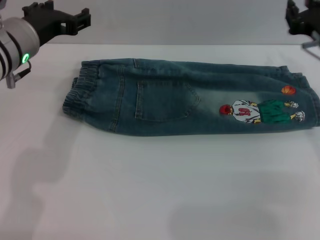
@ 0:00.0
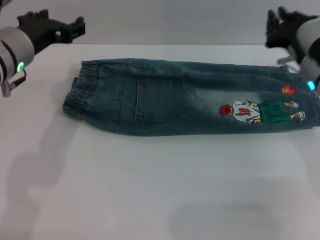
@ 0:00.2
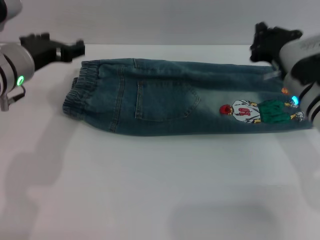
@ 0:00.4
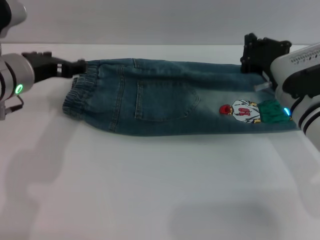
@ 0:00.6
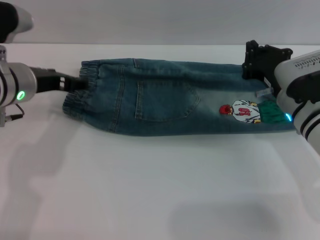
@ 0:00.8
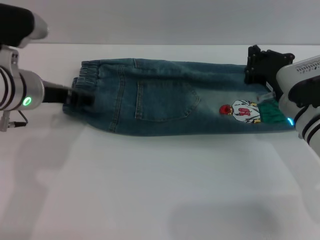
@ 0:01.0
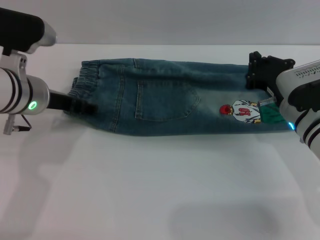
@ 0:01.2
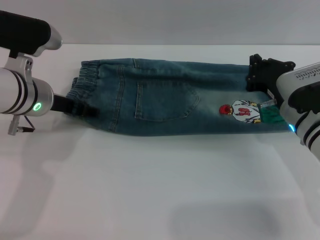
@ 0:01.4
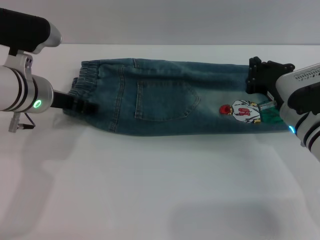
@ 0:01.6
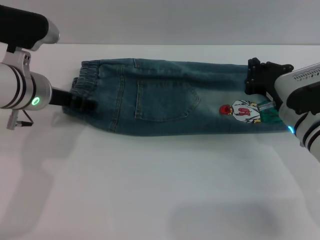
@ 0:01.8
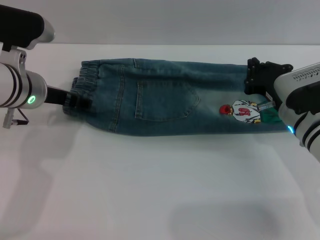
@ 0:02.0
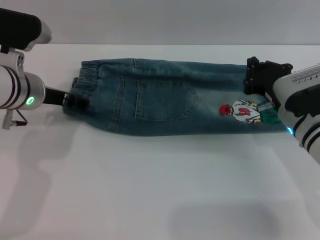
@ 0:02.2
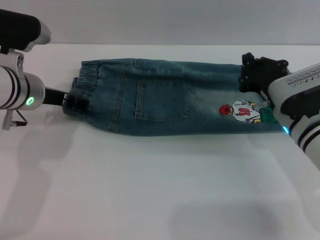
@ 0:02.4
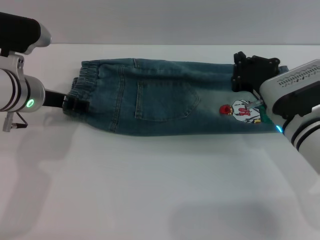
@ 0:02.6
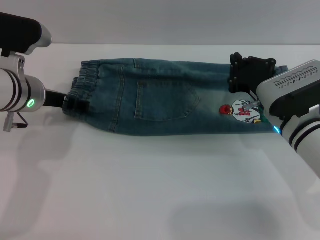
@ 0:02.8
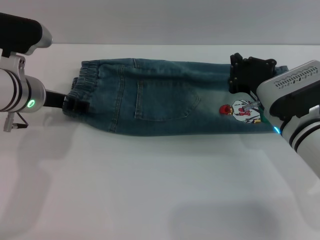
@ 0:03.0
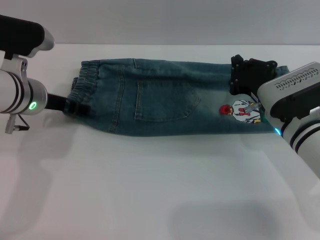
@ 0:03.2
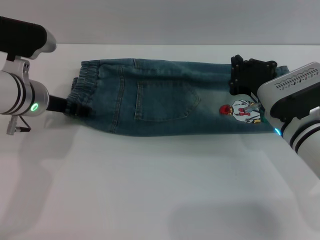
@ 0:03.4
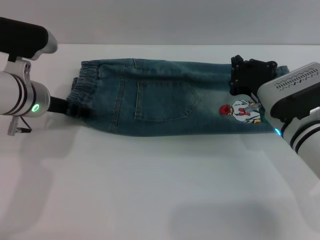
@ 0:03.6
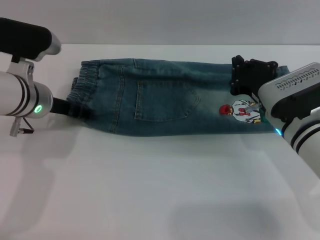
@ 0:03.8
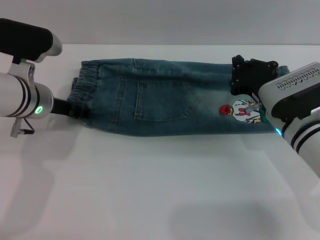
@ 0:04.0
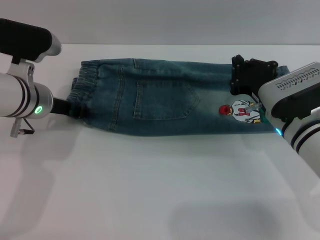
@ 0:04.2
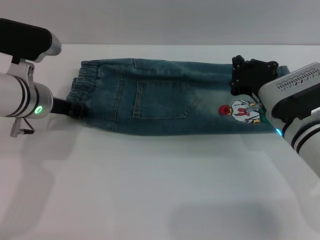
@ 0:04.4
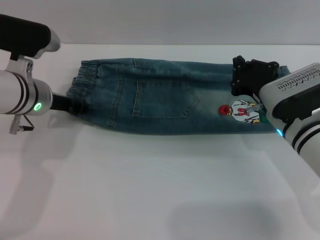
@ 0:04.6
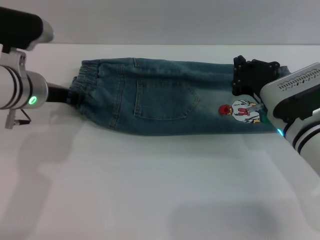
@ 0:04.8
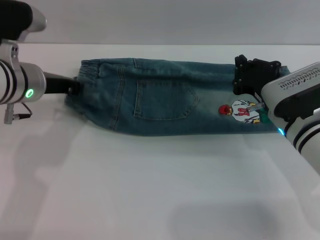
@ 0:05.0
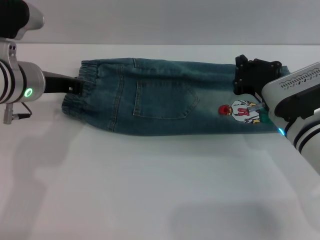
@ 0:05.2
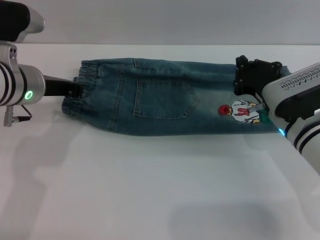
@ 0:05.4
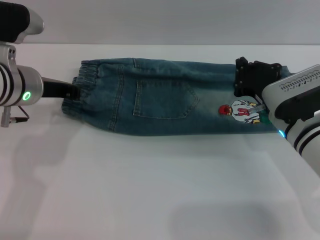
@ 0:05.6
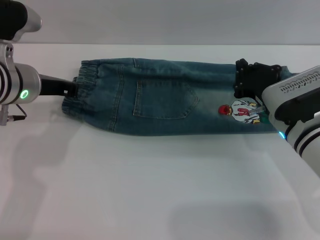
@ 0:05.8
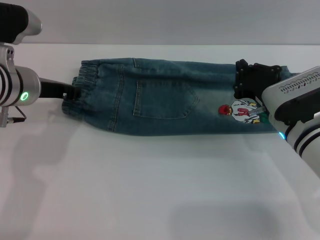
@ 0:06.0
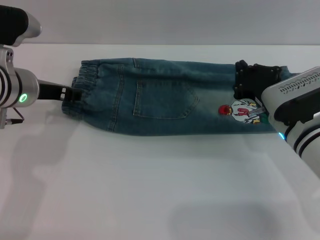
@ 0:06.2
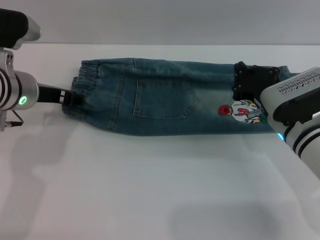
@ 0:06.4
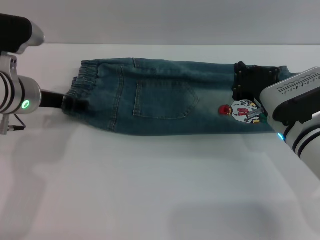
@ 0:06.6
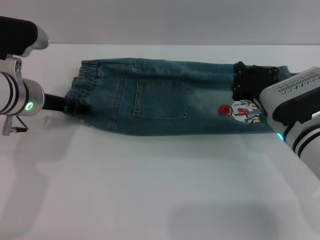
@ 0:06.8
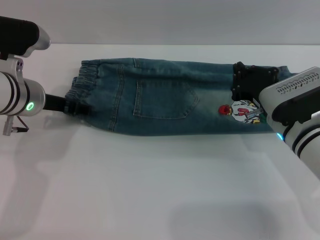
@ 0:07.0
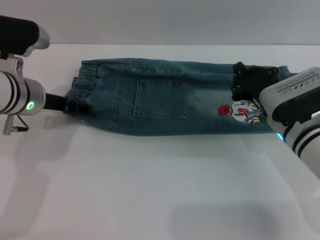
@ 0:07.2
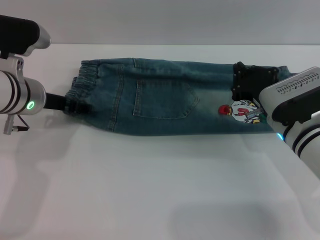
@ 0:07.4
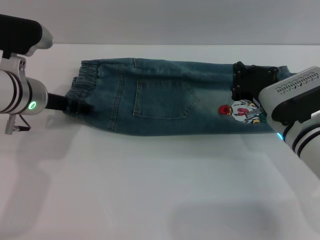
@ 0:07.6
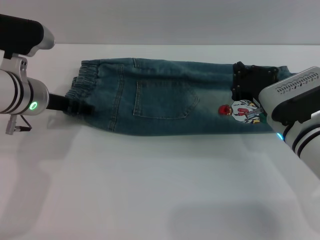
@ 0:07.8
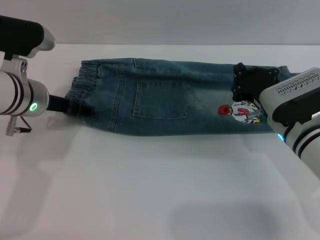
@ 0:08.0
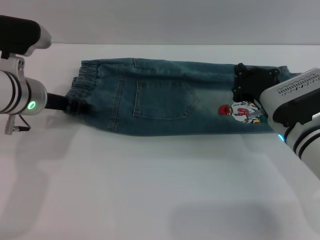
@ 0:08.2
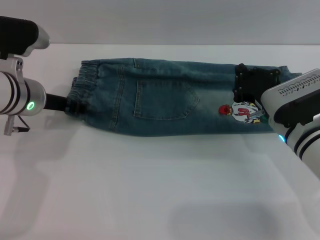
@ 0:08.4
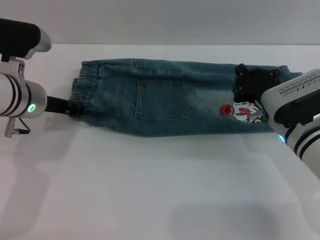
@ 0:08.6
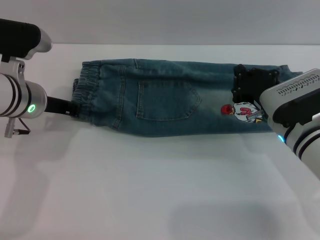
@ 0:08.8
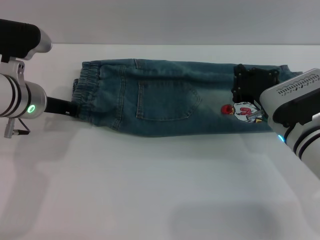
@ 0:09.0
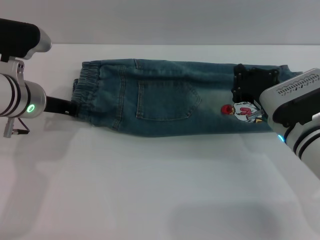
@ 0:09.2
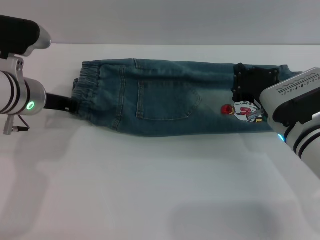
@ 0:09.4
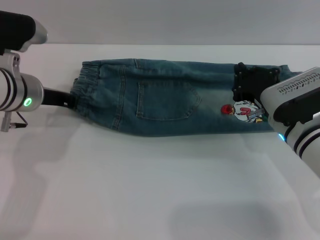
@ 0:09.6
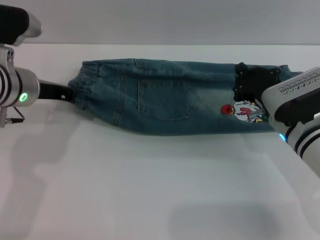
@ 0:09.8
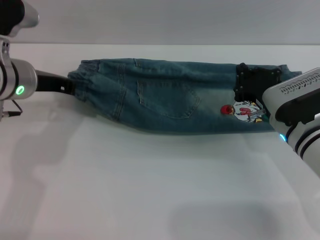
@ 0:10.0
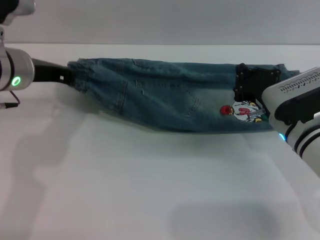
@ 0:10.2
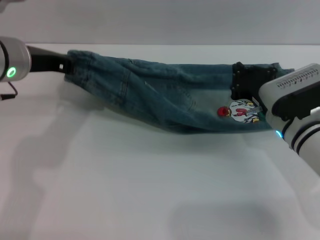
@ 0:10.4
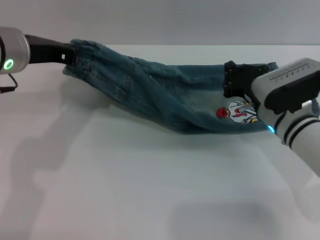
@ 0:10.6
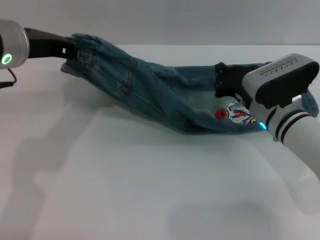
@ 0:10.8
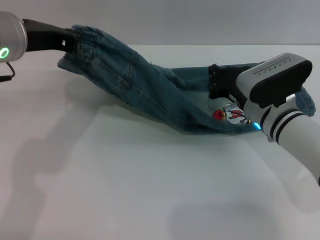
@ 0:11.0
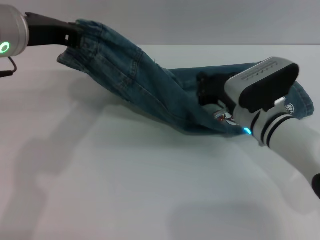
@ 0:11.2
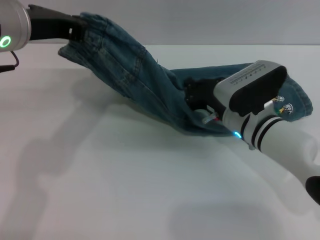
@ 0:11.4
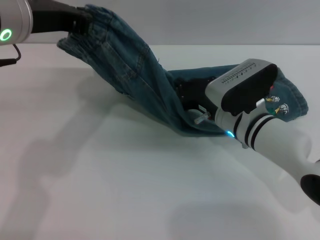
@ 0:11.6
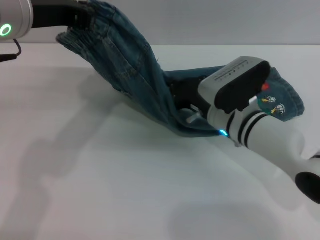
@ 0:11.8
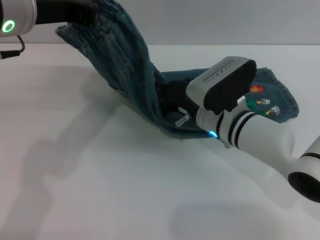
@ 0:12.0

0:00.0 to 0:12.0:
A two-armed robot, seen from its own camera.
0:00.0 to 0:01.6: The right gripper shifts roughly 10 cm downward, and closes up.
0:01.6 to 0:03.0: The grippers make only small movements.
0:03.0 to 0:04.4: The left gripper closes.
0:04.4 to 0:06.0: The left gripper closes up.
0:06.0 to 0:07.6: The left gripper opens.
0:07.6 to 0:09.0: The left gripper closes.
0:09.0 to 0:10.4: The left gripper heads upward, covering some 10 cm.
0:10.4 to 0:12.0: The left gripper goes roughly 10 cm upward. The right gripper is displaced to the left by some 10 cm.

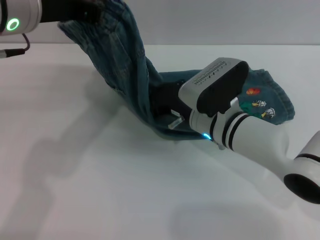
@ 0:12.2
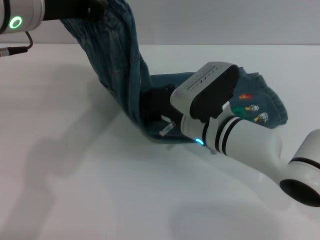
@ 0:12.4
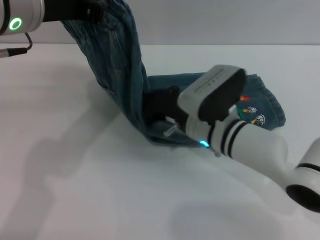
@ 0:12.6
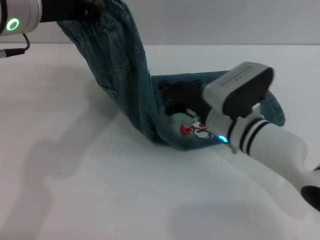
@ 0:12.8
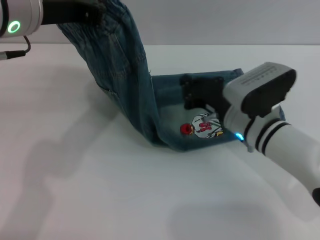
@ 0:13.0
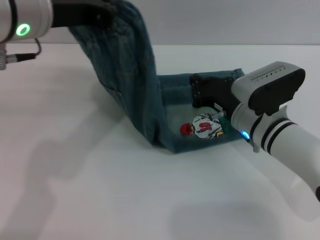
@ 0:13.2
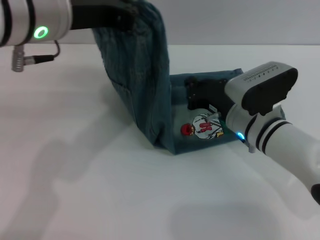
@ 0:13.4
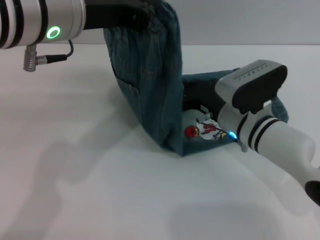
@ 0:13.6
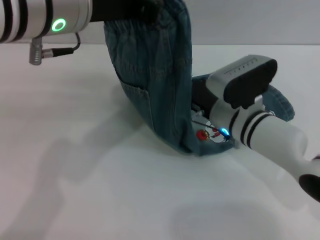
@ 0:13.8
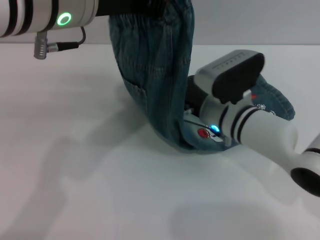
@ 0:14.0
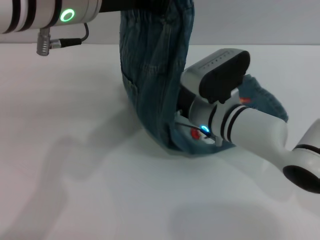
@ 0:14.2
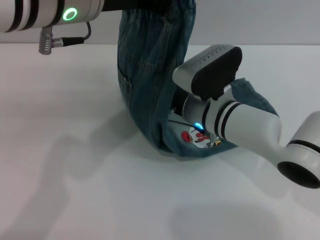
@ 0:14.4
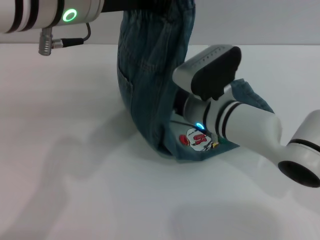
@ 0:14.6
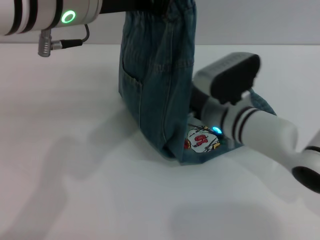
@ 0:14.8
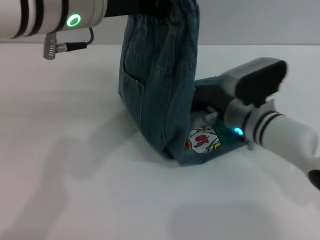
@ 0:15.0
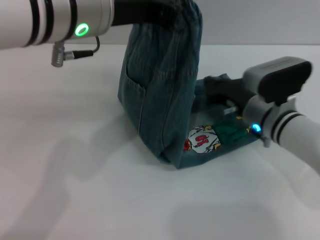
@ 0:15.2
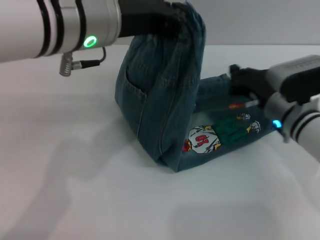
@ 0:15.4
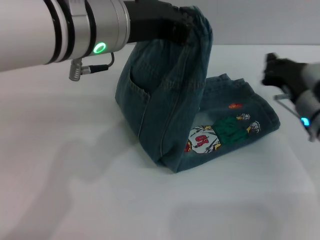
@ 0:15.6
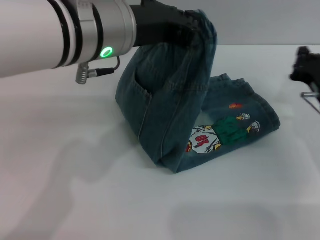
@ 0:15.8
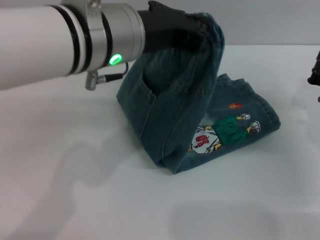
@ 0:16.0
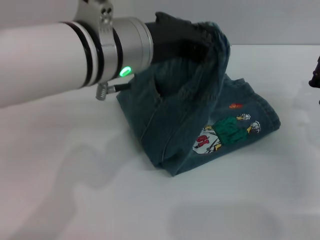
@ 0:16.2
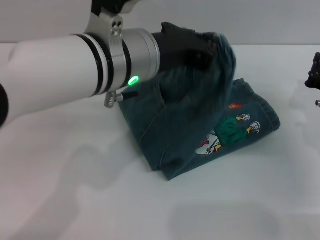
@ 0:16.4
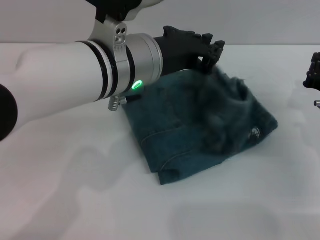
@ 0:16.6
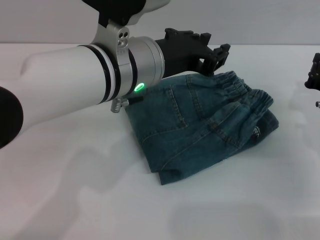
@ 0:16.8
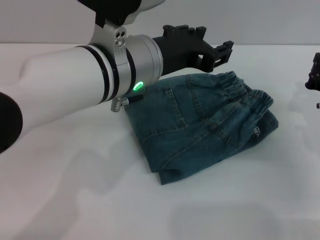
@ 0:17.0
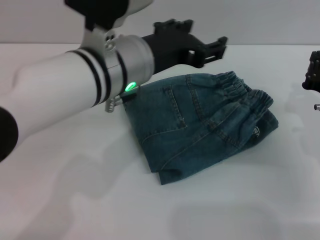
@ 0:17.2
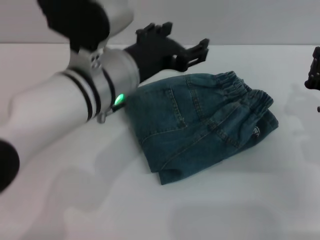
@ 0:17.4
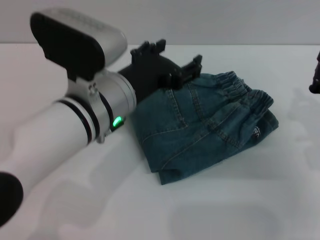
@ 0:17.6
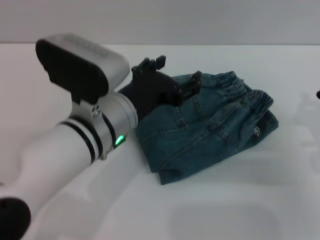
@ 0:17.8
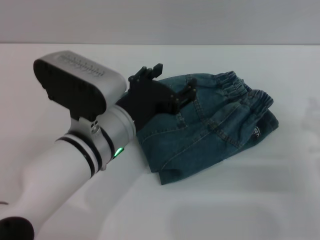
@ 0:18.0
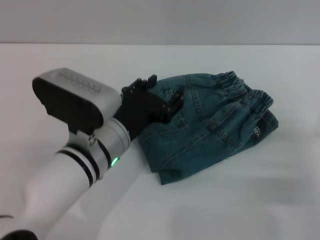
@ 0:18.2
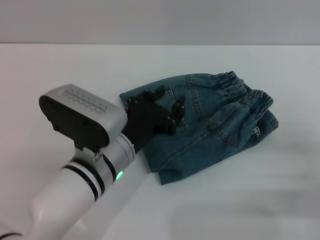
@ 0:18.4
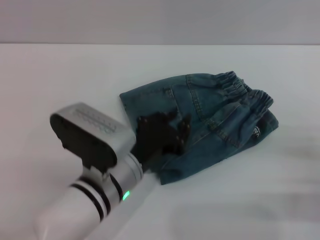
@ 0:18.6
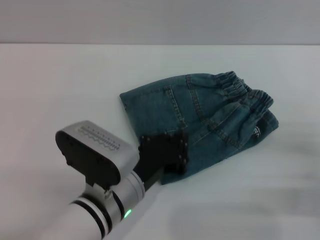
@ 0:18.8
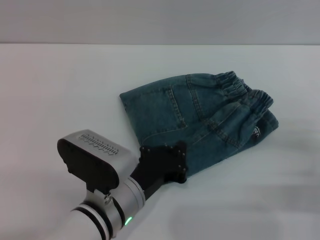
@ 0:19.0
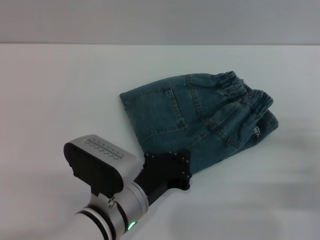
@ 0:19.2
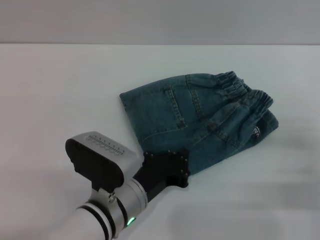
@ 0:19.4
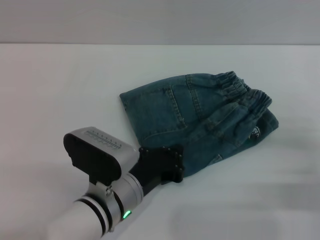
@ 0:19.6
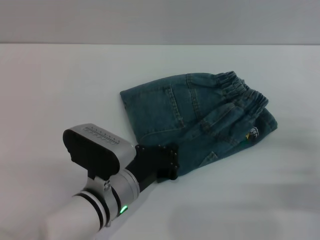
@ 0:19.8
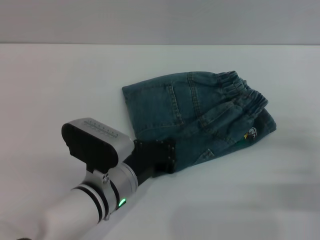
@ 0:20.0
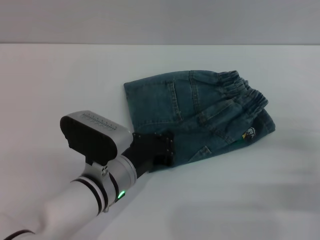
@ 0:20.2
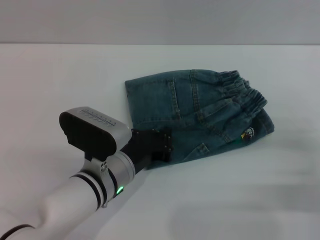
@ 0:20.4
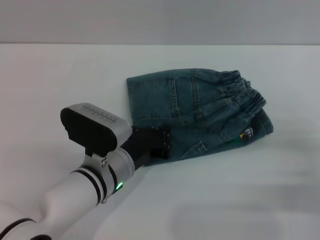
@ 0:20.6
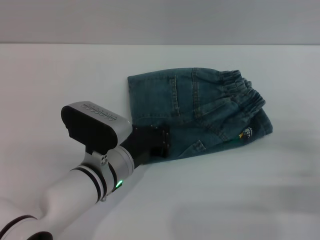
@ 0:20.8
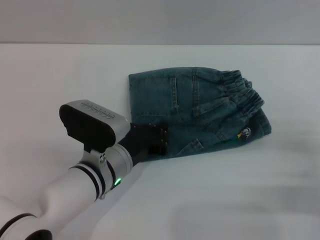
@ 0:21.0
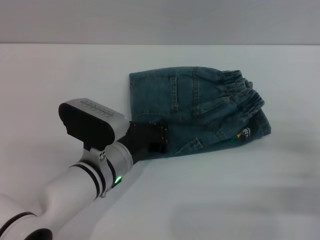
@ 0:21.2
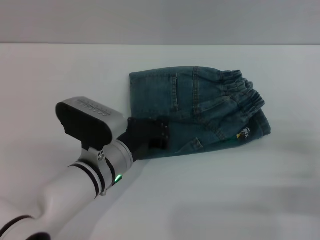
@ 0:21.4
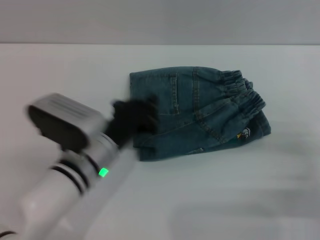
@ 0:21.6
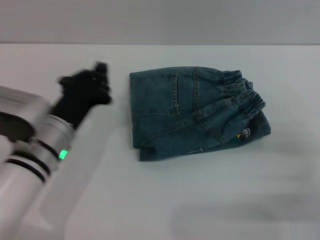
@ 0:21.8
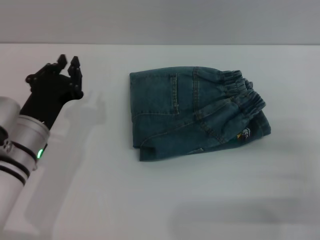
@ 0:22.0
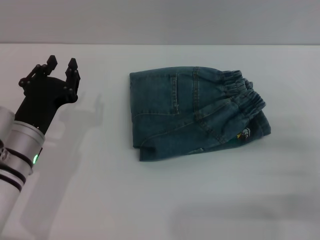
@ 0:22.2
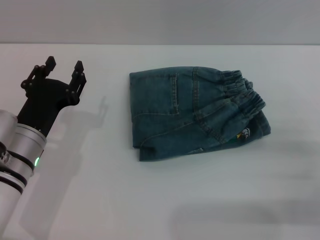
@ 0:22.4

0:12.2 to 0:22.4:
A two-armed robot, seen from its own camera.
Step, 0:12.2 to 0:16.6: Fold the pants from left to right with the left gripper.
Step, 0:16.8 to 0:21.4: Place the folded trousers onto the center area with the left grippers.
0:15.2 to 0:16.6: The left gripper moves downward, some 5 cm. The right gripper heads to the right, covering roughly 10 cm.
0:16.6 to 0:18.0: The right gripper shifts approximately 5 cm backward. The left gripper moves downward, some 10 cm, and opens.
0:18.0 to 0:19.4: The left gripper is displaced downward and backward by some 10 cm, and closes.
0:19.4 to 0:21.0: The left gripper goes about 5 cm forward.
0:21.0 to 0:22.4: The left gripper travels to the left by roughly 10 cm, and opens.
